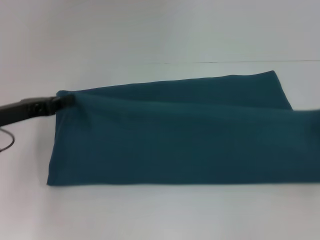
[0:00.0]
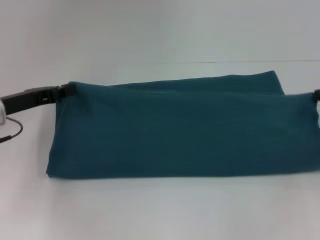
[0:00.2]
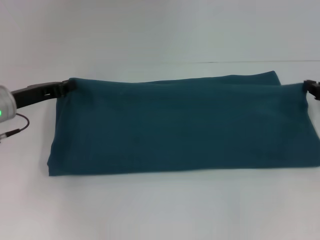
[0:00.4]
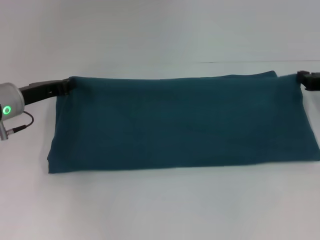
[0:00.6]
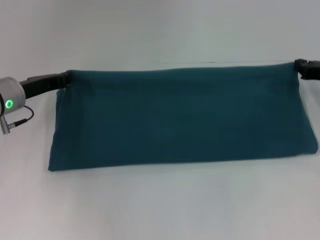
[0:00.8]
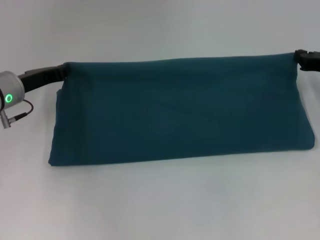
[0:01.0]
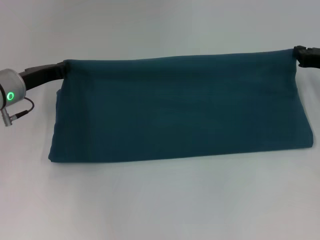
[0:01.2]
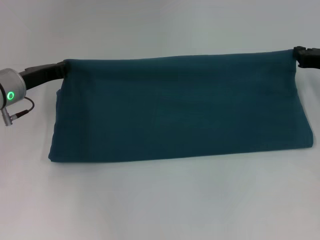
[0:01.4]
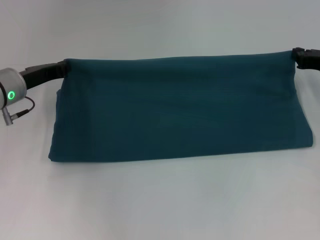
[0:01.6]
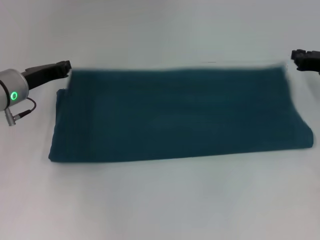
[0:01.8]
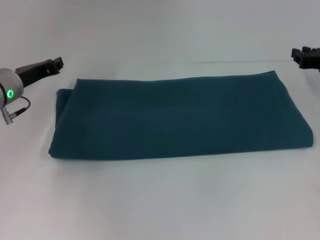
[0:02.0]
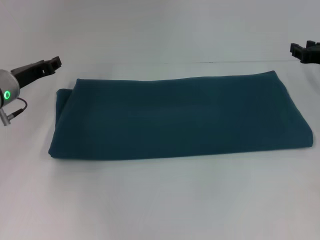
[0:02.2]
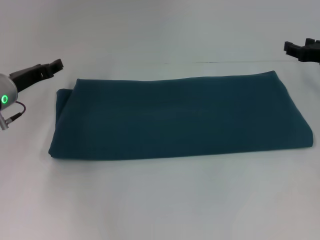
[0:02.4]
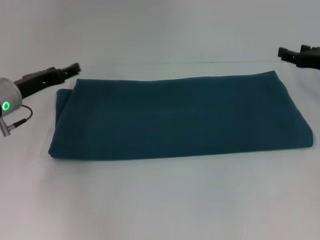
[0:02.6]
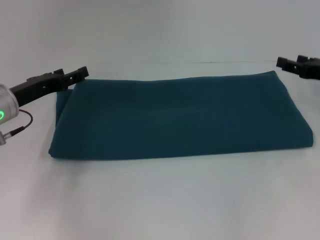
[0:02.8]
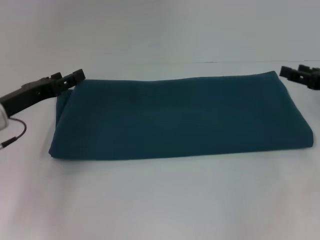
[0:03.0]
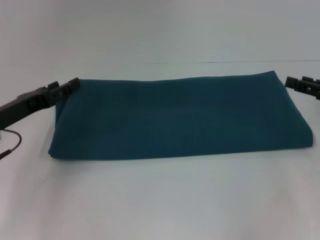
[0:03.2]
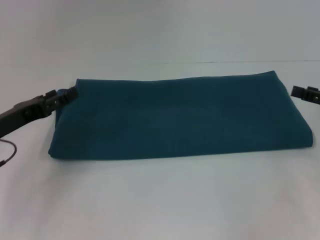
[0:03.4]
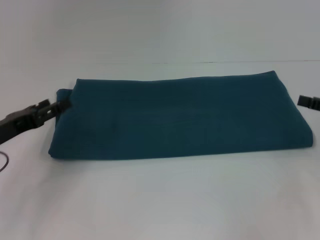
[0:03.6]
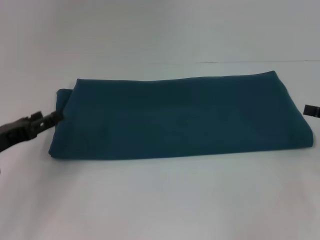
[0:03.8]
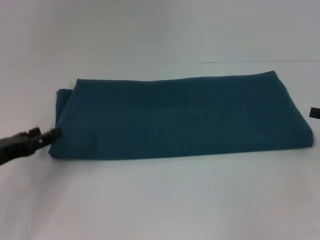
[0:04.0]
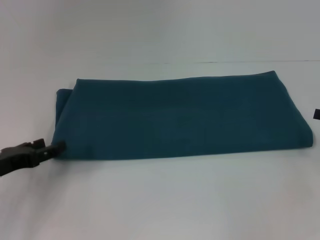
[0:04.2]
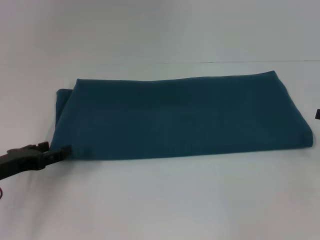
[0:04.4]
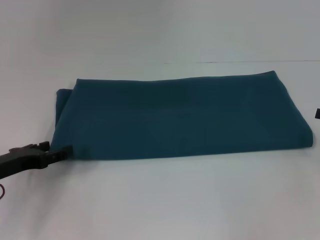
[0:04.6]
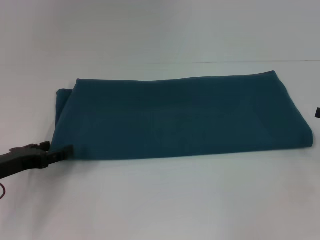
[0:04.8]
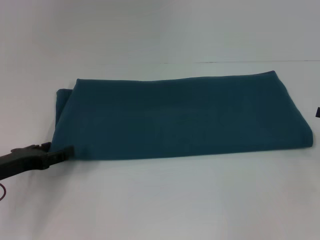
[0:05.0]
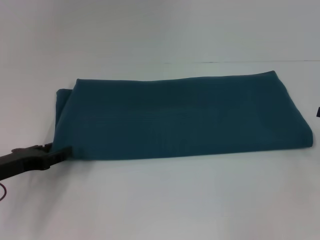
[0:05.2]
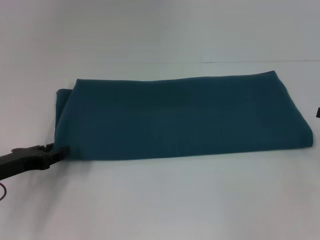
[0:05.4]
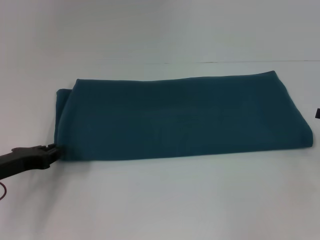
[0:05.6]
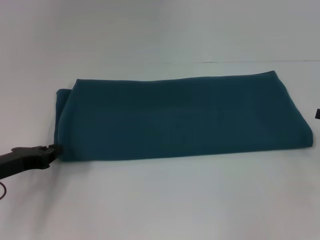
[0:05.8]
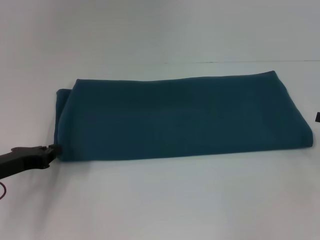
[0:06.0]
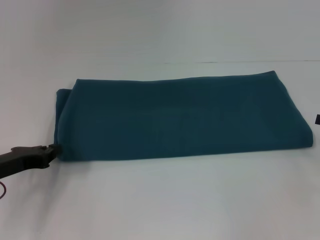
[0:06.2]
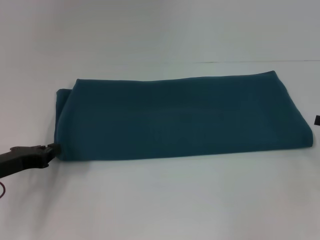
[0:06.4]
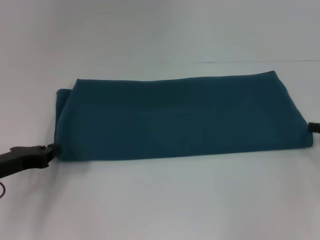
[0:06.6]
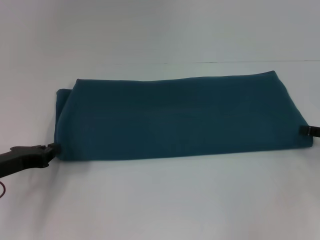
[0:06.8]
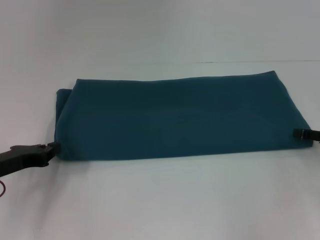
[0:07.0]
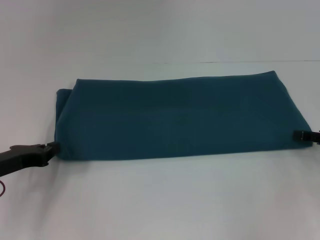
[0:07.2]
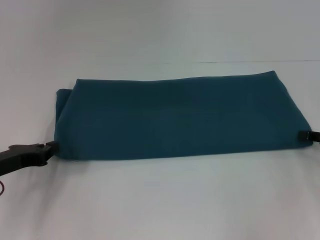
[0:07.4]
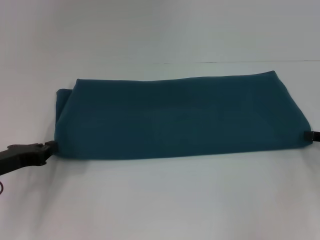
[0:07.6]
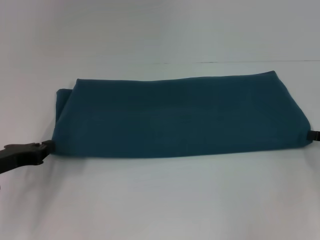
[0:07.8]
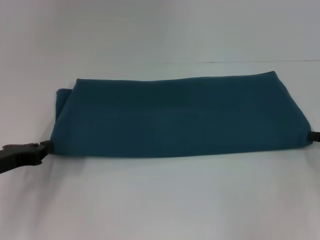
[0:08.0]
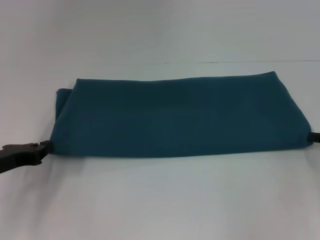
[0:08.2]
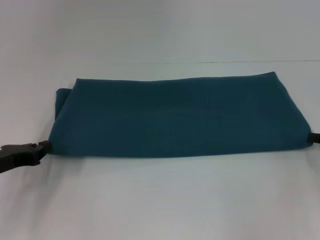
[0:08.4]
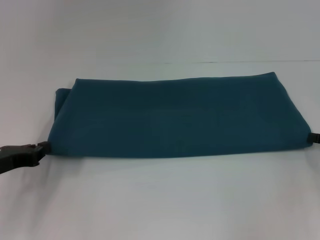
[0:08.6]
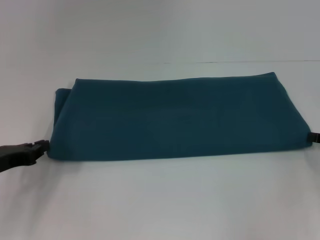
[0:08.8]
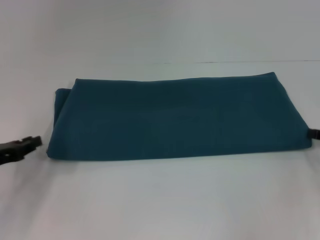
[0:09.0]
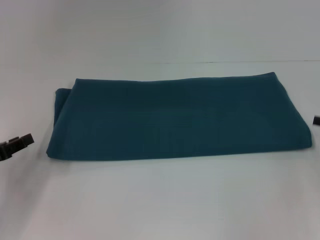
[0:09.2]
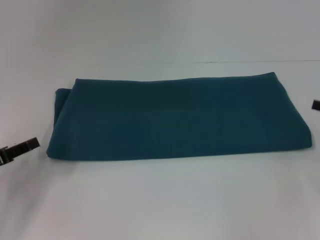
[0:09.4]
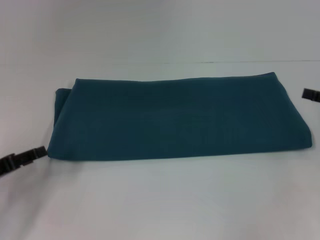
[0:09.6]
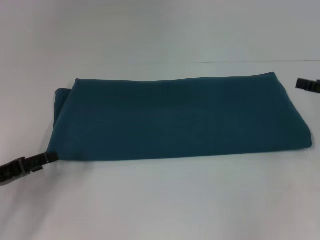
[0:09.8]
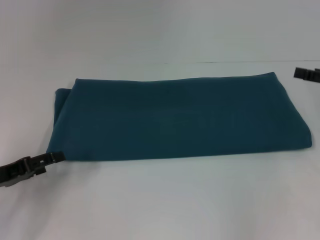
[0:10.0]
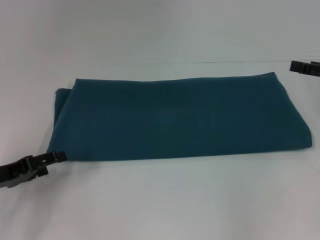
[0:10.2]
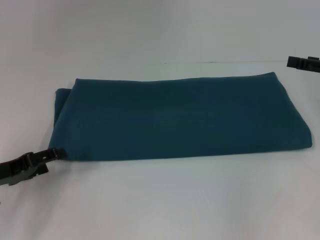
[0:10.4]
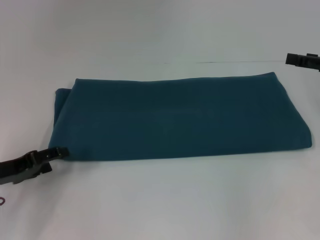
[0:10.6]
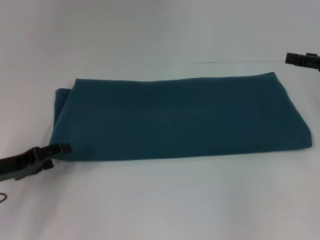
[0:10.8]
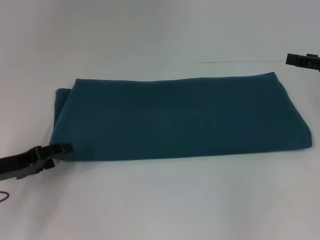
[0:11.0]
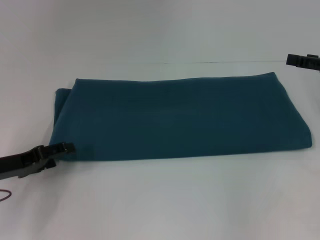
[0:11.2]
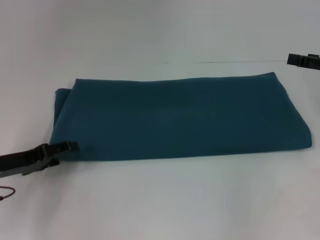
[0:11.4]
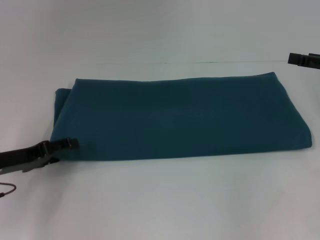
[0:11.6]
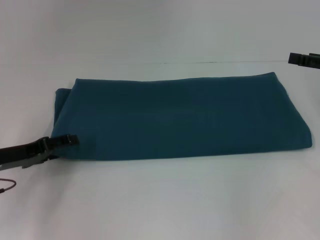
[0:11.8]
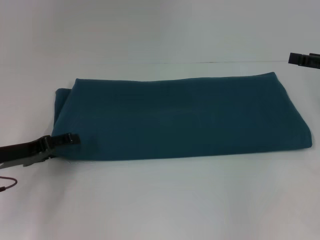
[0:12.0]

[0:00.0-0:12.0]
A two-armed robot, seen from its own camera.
Step, 0:00.0 to 0:02.0: Fold the clothes to the right.
0:00.0 to 0:01.6: The right gripper moves forward and to the left, roughly 15 cm, while the left gripper heads forward, covering roughly 5 cm.
0:01.6 to 0:03.0: The two grippers go some 5 cm backward. The right gripper opens. Meanwhile the left gripper opens its fingers.
0:03.0 to 0:04.4: The right gripper is displaced to the right and backward by approximately 10 cm. Meanwhile the left gripper shifts roughly 5 cm backward.
0:06.0 to 0:07.6: The grippers move only a little.
0:07.6 to 0:09.0: The right gripper closes.
0:09.0 to 0:10.4: The right gripper goes some 10 cm upward and forward, and opens up; the left gripper opens.
0:10.4 to 0:12.0: There are only small adjustments of the grippers.

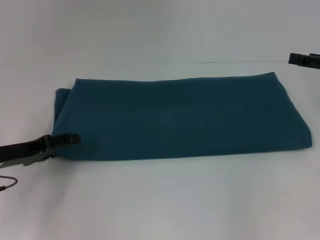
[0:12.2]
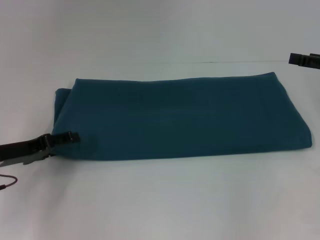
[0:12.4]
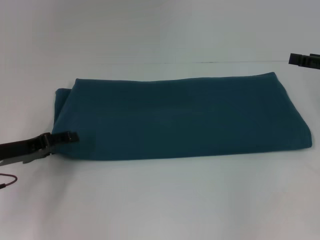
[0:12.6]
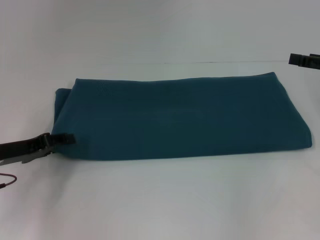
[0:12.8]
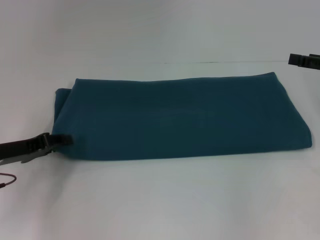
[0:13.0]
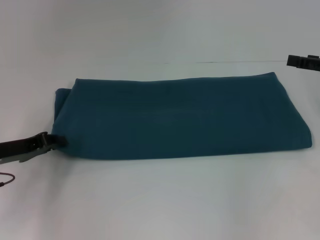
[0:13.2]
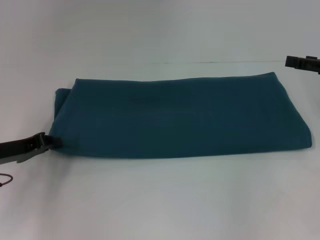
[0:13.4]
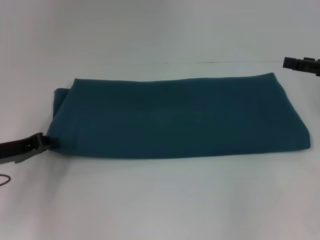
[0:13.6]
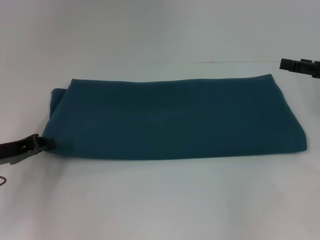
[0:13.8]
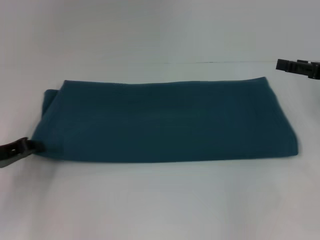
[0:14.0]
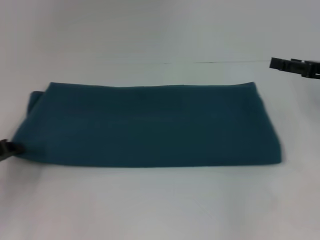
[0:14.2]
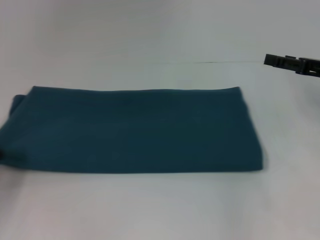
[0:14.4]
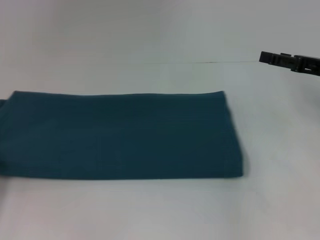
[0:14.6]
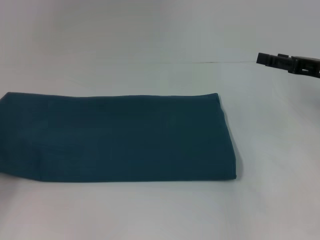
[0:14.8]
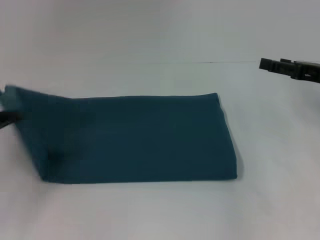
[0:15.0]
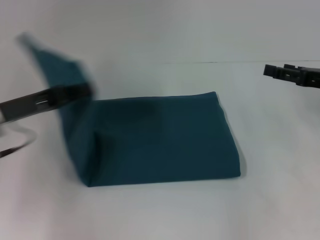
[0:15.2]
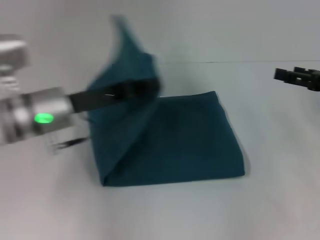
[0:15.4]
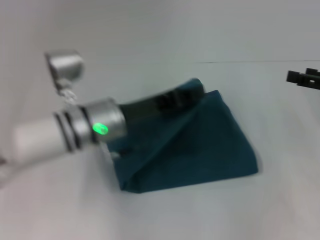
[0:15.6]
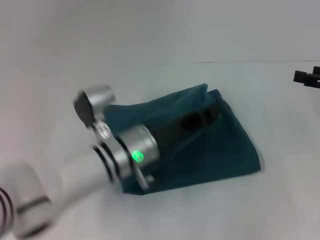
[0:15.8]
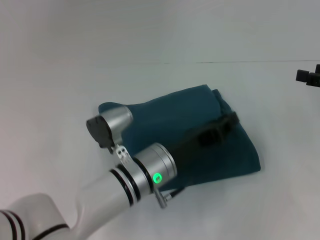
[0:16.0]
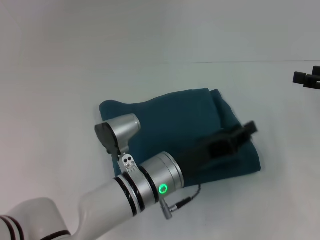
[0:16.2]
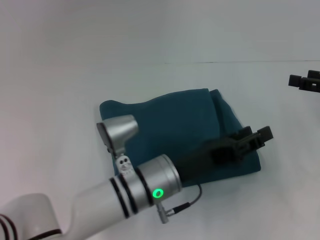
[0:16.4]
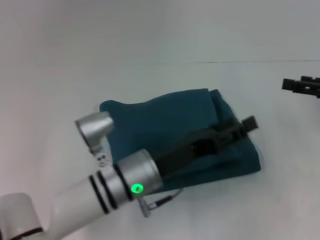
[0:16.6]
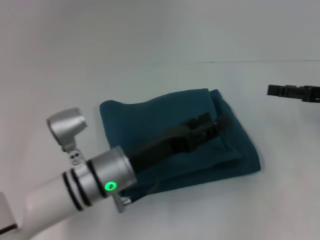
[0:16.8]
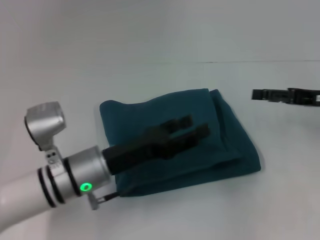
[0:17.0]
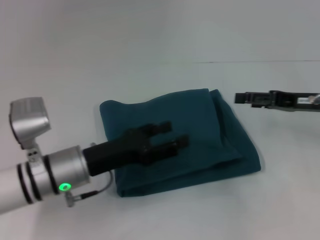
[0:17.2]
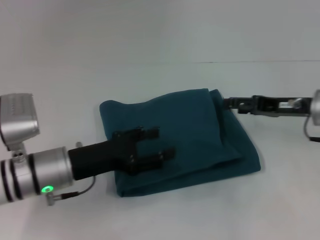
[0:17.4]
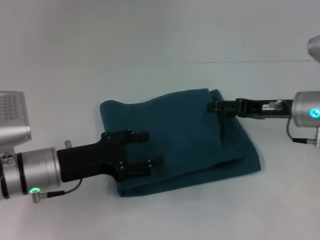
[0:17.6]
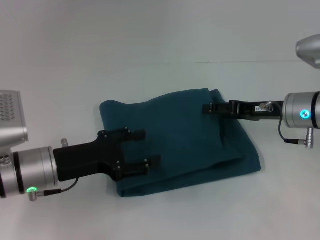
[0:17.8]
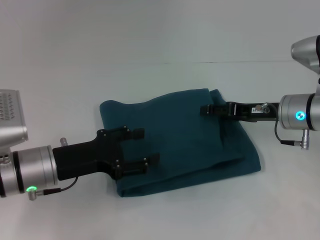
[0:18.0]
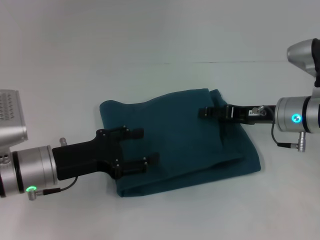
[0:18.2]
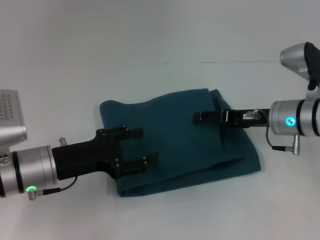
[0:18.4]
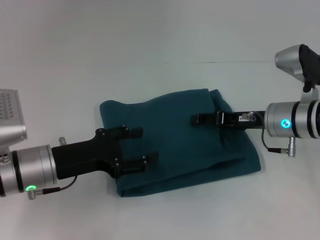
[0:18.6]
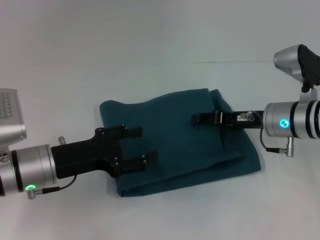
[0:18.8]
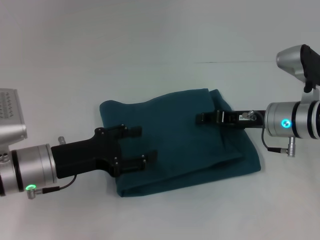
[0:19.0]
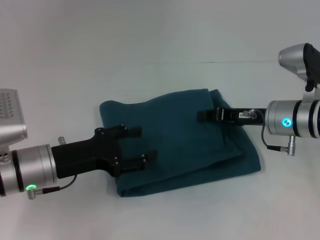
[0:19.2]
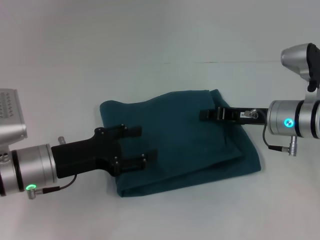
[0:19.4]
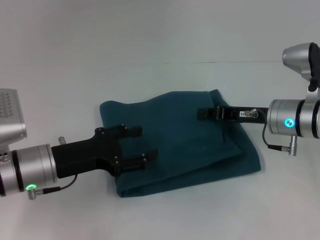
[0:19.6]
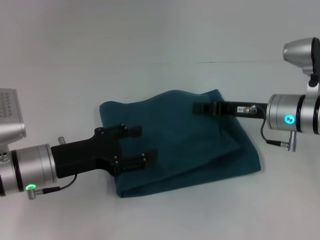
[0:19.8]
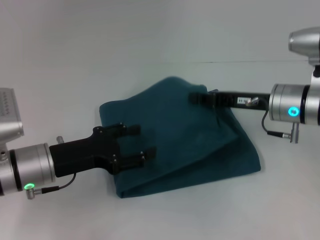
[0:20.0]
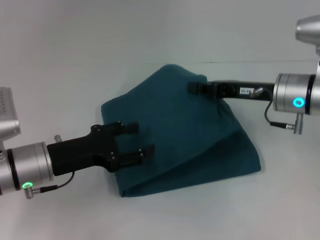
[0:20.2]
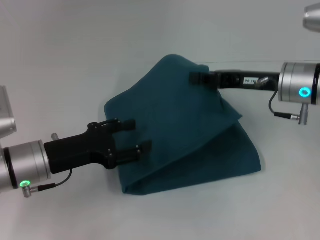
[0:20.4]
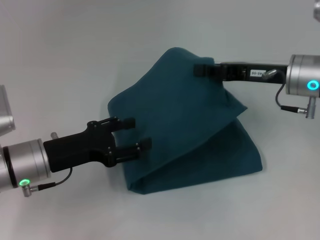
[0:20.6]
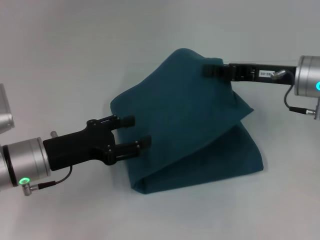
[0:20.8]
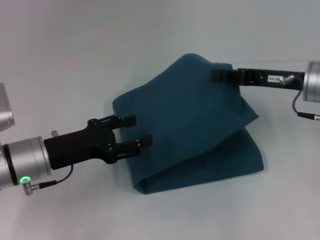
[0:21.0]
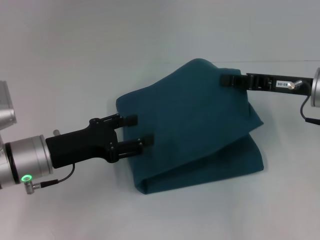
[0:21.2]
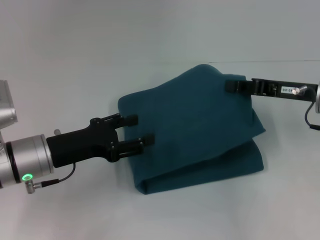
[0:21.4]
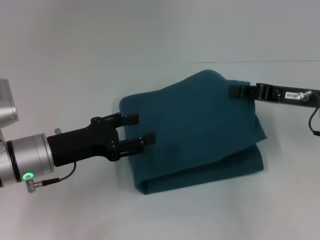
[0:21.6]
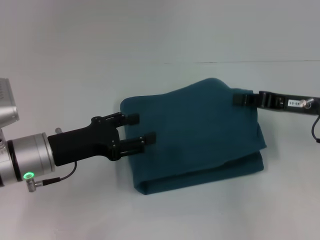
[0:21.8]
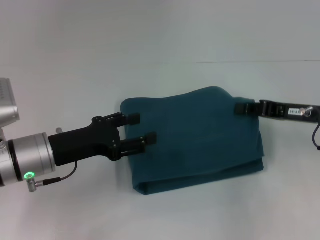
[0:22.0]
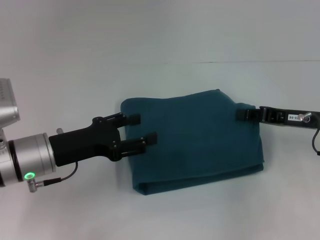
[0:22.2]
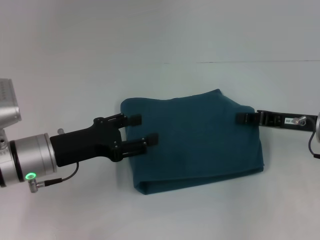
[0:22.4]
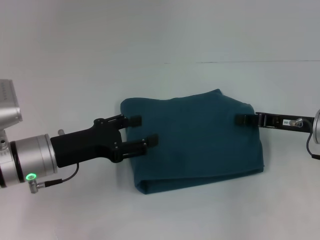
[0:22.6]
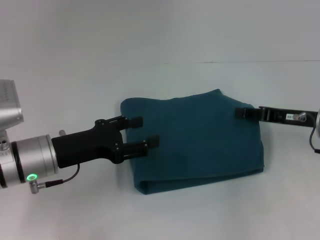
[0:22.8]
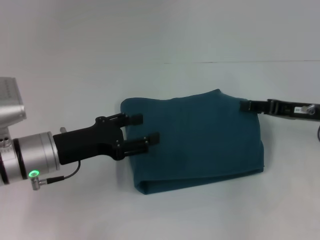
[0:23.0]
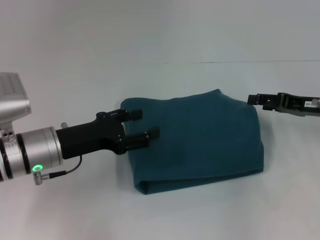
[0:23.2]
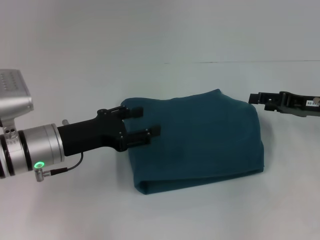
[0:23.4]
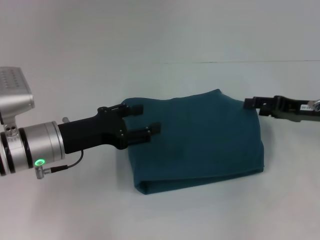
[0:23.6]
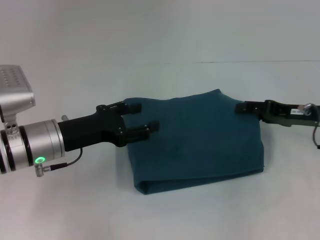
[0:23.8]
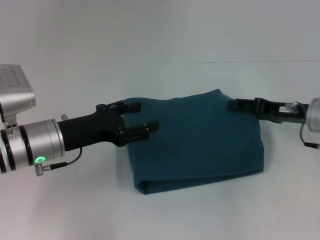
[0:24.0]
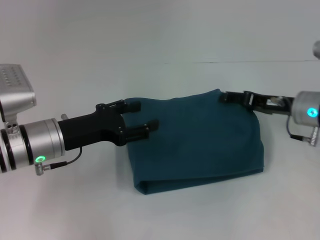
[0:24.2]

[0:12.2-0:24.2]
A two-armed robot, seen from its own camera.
Step, 0:12.2 to 0:16.2: Fold the clothes to the left.
0:12.2 to 0:13.8: The left gripper closes.
0:13.8 to 0:15.2: The left gripper travels upward and to the right by some 10 cm.
0:15.2 to 0:16.6: The left gripper heads to the right and downward, covering approximately 20 cm, and opens.
0:16.6 to 0:18.2: The left gripper heads to the left, covering some 15 cm; the right gripper goes roughly 15 cm to the left and downward.
0:18.2 to 0:19.8: The right gripper closes up.
0:19.8 to 0:21.2: The right gripper changes place by about 5 cm.
0:21.2 to 0:22.6: The right gripper shifts about 5 cm downward.
0:22.6 to 0:24.2: The right gripper opens its fingers.
